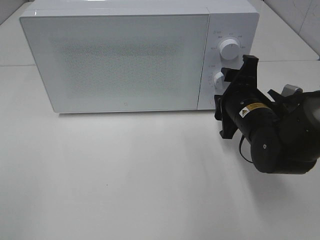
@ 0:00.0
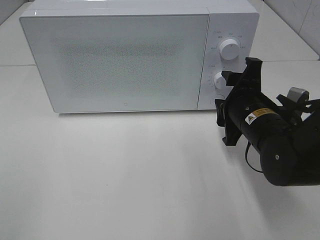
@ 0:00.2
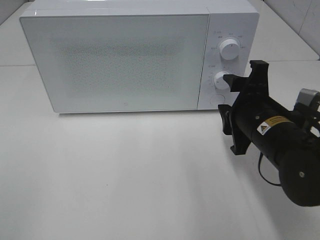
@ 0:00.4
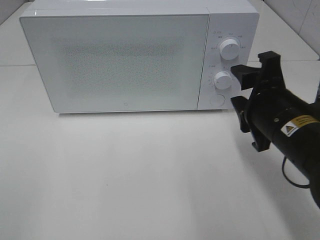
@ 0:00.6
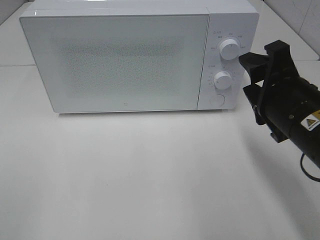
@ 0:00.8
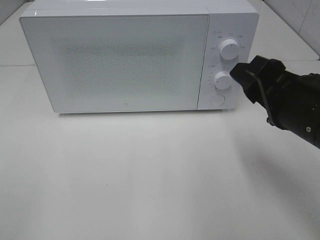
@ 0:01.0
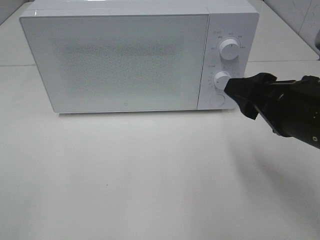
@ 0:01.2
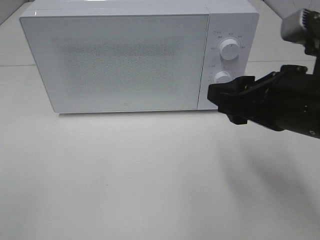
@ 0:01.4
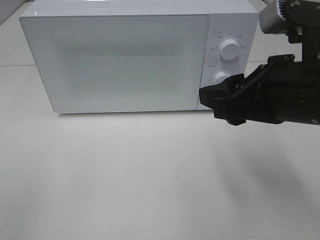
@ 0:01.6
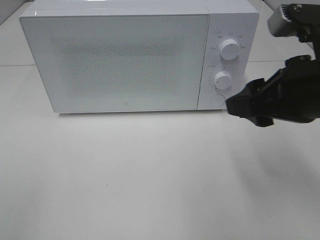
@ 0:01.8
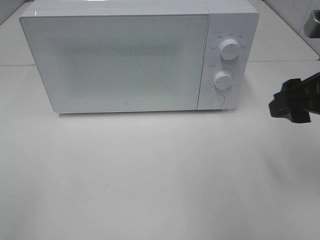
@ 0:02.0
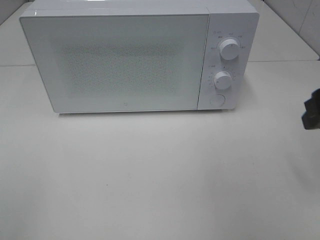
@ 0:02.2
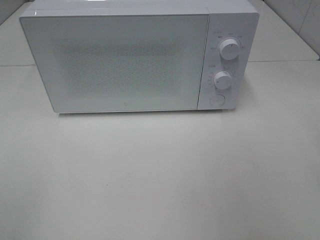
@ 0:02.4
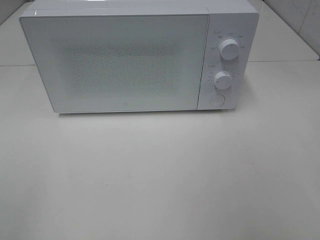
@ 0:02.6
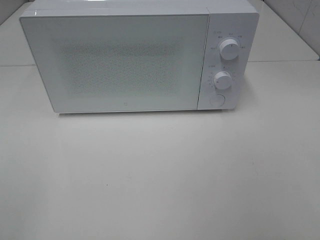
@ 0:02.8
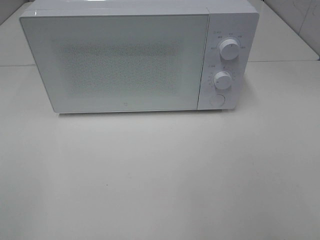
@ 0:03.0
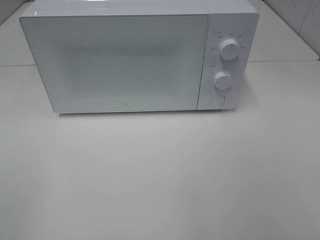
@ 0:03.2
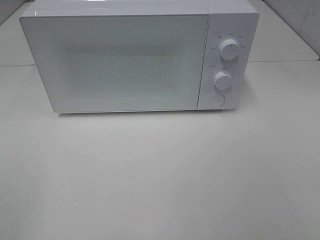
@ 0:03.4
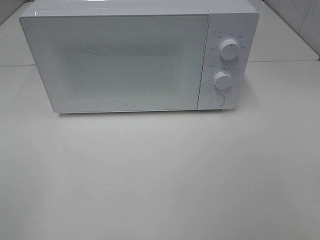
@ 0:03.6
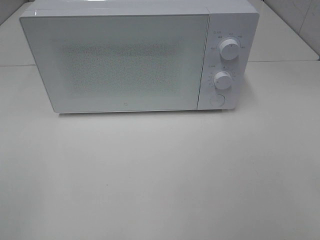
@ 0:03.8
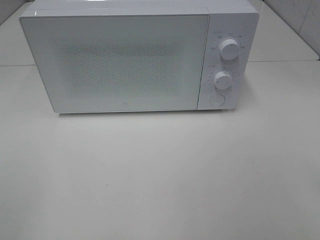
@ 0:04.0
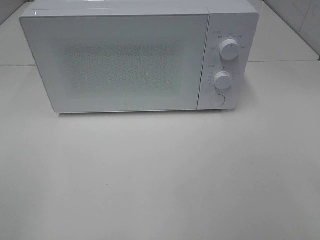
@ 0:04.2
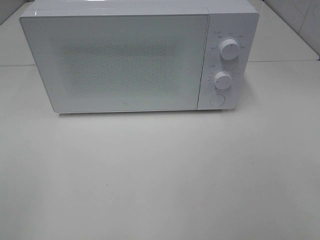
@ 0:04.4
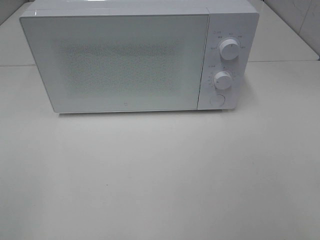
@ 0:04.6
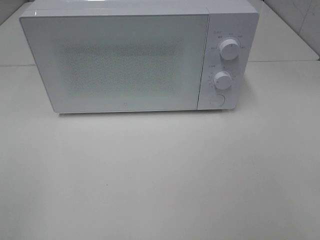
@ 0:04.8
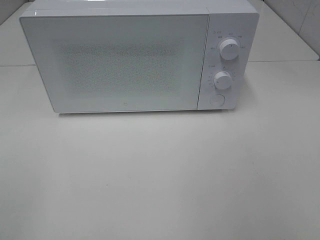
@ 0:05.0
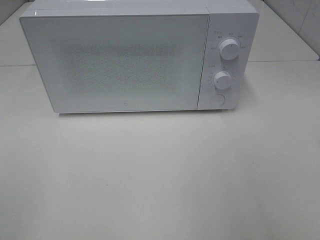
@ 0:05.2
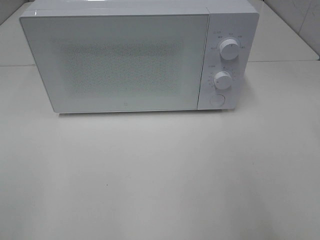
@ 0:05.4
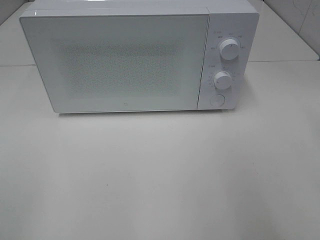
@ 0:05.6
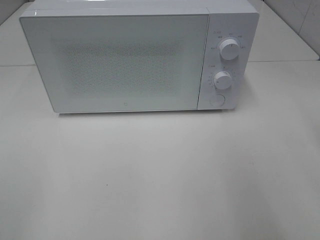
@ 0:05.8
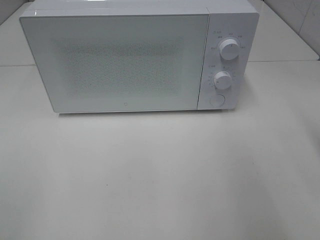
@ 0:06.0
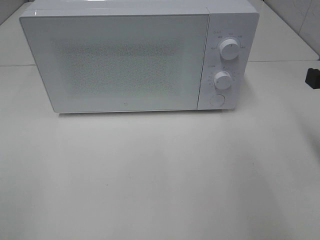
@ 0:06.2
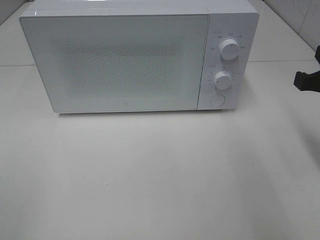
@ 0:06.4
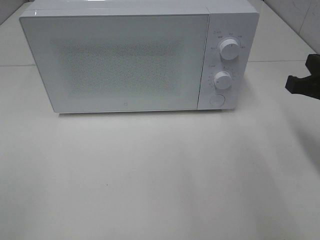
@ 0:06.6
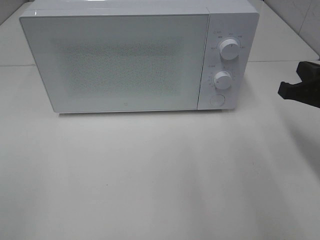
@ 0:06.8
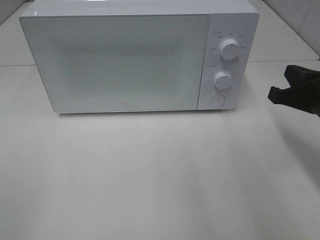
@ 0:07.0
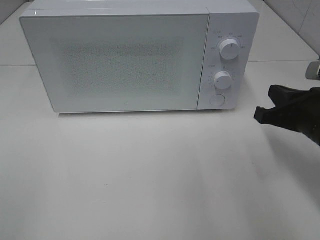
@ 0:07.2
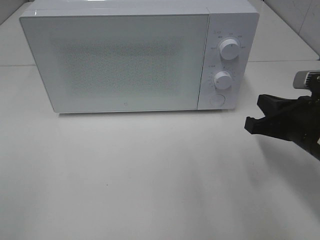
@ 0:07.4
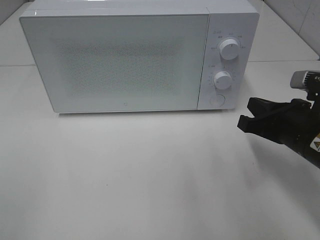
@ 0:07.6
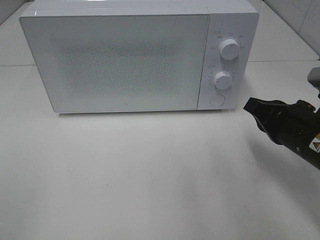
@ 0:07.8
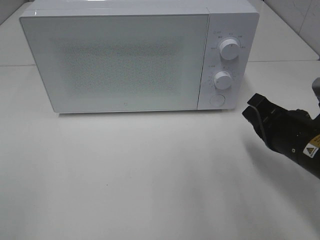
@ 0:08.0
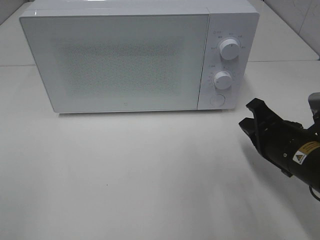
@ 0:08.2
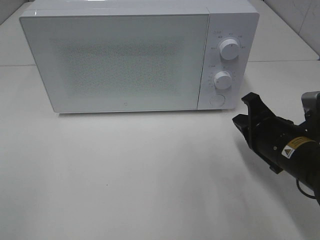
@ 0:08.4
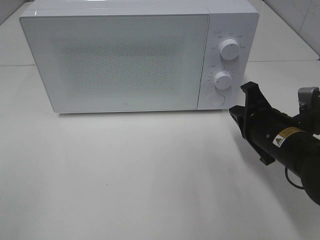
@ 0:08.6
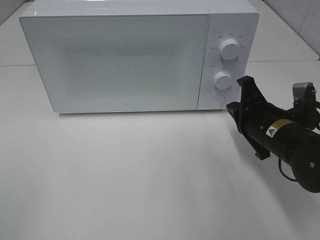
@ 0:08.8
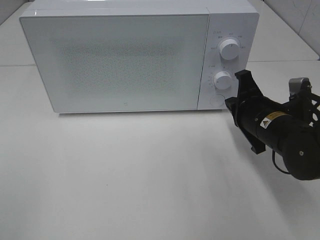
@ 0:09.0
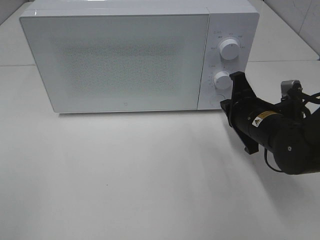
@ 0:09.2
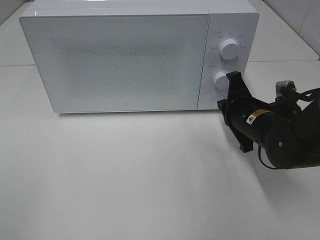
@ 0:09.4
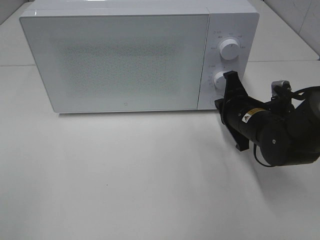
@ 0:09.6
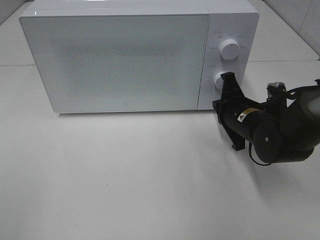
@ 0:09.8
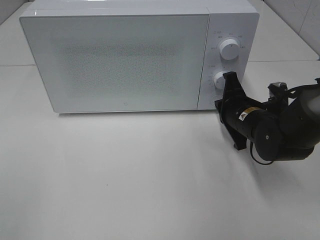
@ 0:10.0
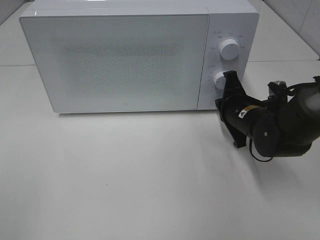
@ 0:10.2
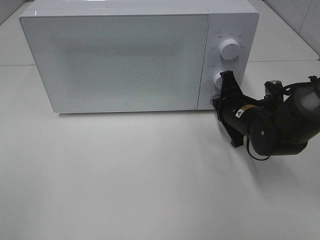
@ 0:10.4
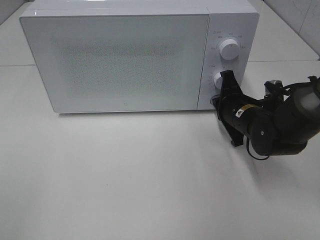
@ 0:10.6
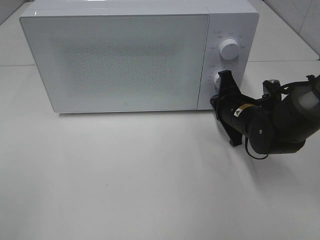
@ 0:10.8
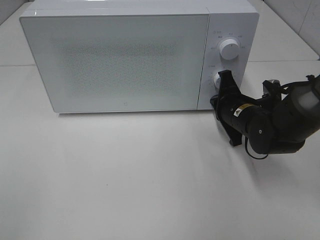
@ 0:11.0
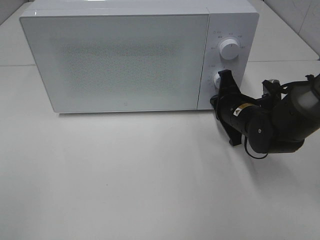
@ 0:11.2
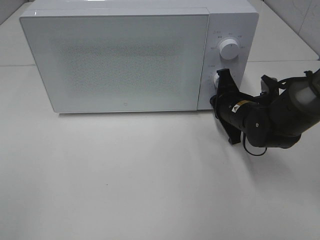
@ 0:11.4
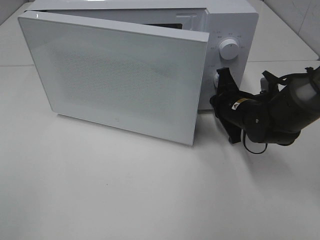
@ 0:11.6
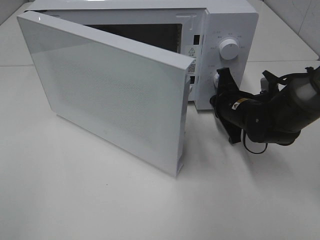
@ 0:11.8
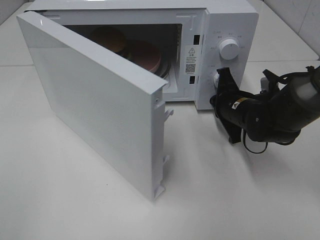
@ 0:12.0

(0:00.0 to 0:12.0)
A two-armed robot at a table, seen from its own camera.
Task of the whole recording: Heat the burger.
0:00.0 - 0:01.6: The right gripper heads upward and backward, covering some 15 cm.
0:01.6 - 0:03.0: The right gripper travels backward and to the right by about 20 cm.
0:06.0 - 0:07.6: The right gripper heads downward and to the left, covering about 15 cm.
0:07.6 - 0:09.0: The right gripper heads forward, covering about 5 cm.
0:09.0 - 0:10.4: The right gripper moves forward, about 5 cm.

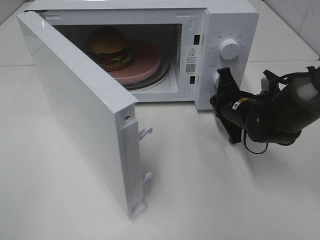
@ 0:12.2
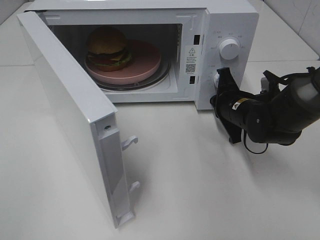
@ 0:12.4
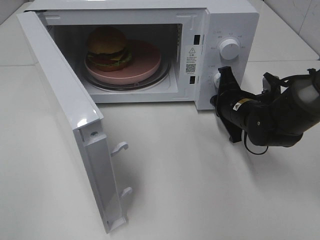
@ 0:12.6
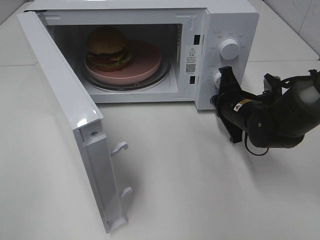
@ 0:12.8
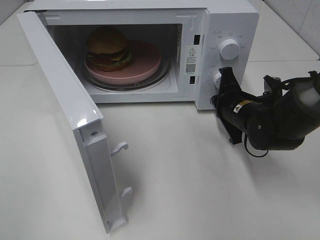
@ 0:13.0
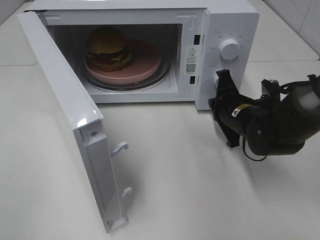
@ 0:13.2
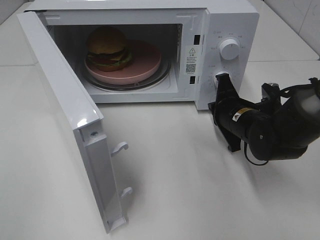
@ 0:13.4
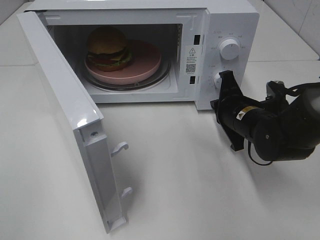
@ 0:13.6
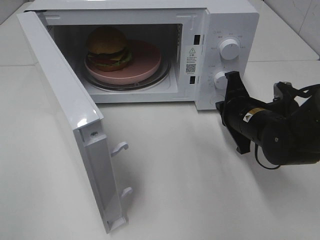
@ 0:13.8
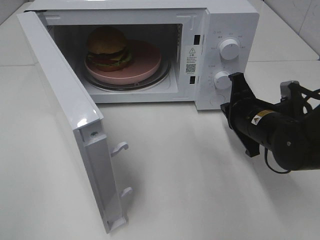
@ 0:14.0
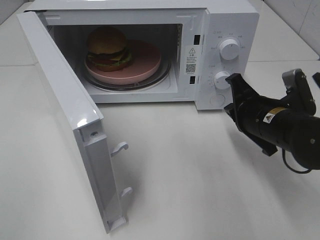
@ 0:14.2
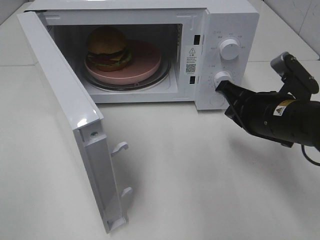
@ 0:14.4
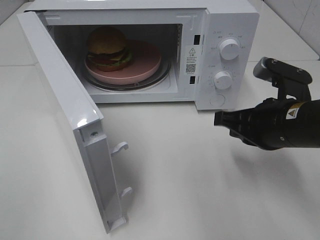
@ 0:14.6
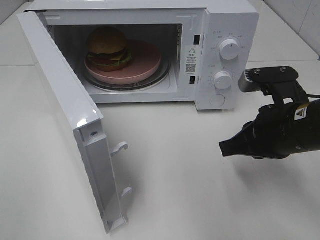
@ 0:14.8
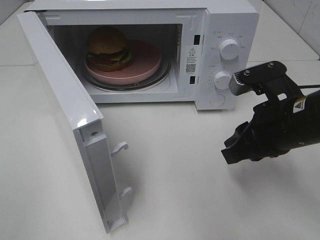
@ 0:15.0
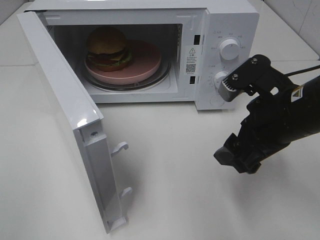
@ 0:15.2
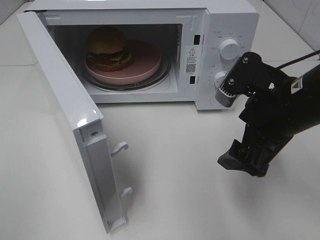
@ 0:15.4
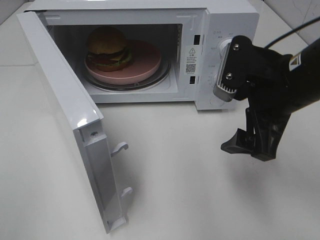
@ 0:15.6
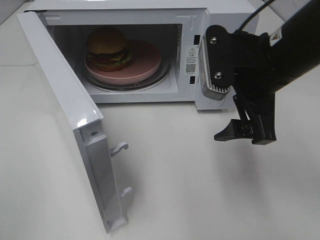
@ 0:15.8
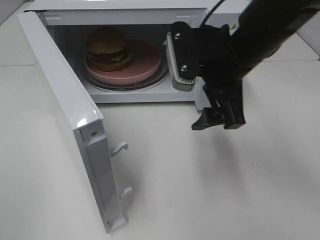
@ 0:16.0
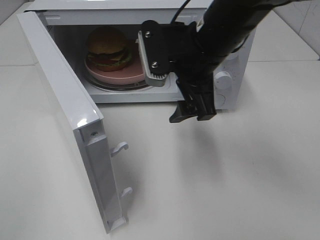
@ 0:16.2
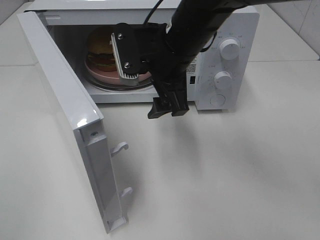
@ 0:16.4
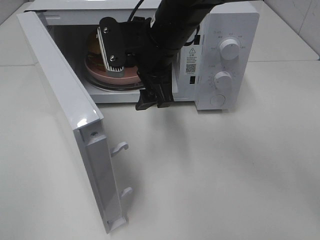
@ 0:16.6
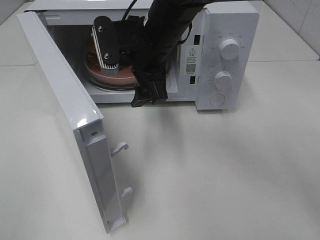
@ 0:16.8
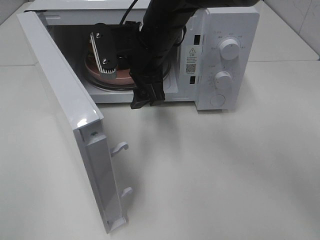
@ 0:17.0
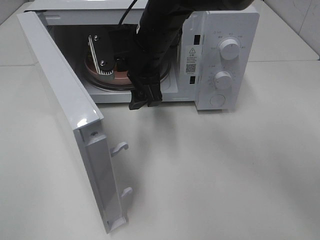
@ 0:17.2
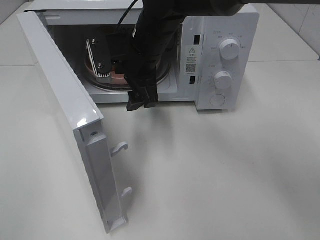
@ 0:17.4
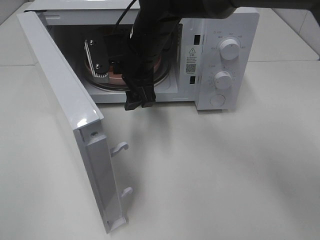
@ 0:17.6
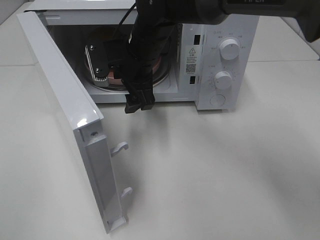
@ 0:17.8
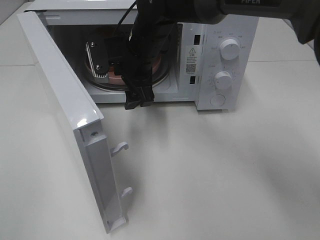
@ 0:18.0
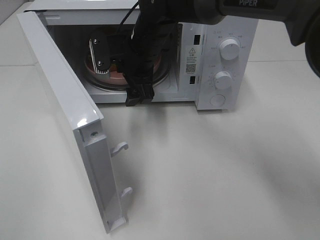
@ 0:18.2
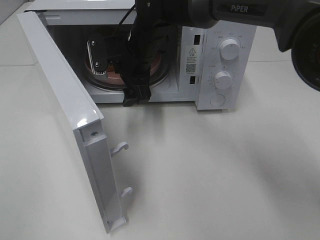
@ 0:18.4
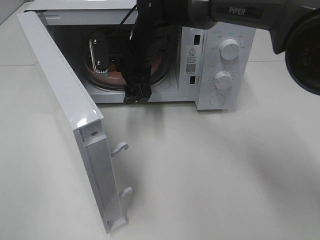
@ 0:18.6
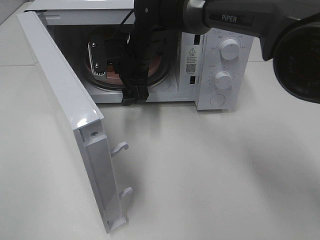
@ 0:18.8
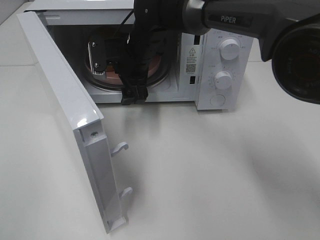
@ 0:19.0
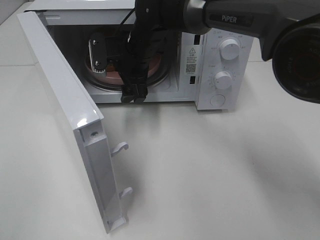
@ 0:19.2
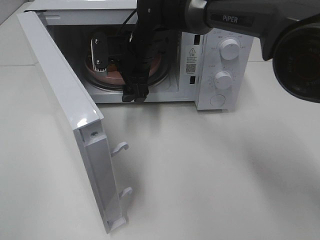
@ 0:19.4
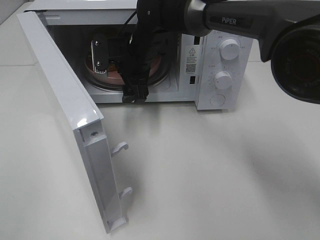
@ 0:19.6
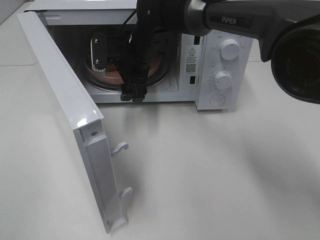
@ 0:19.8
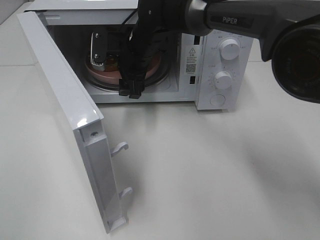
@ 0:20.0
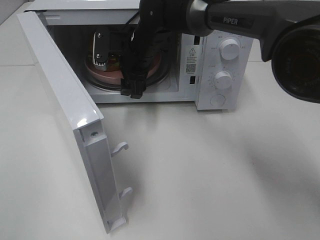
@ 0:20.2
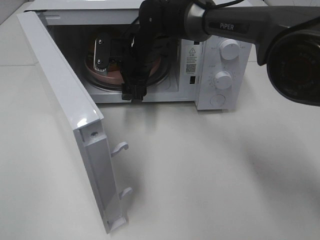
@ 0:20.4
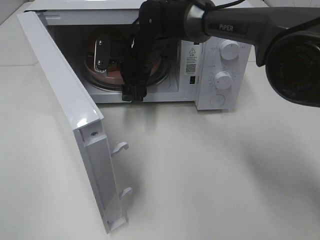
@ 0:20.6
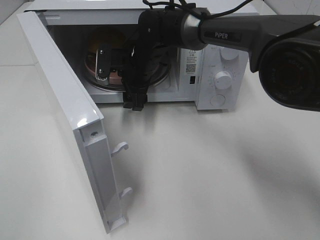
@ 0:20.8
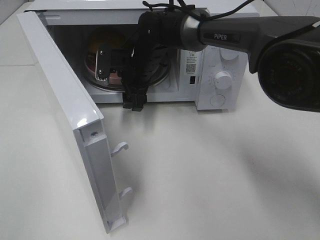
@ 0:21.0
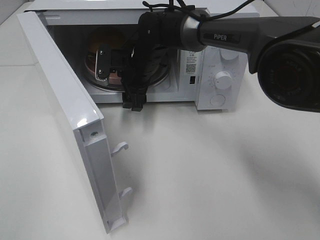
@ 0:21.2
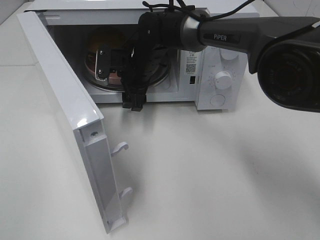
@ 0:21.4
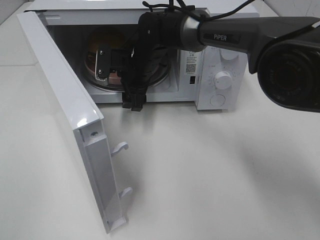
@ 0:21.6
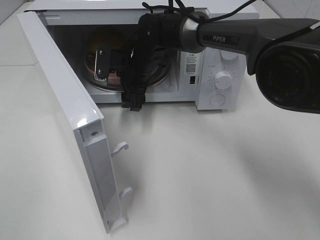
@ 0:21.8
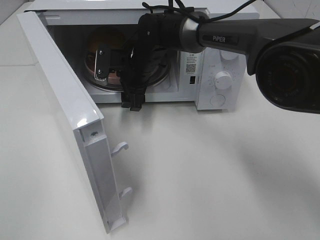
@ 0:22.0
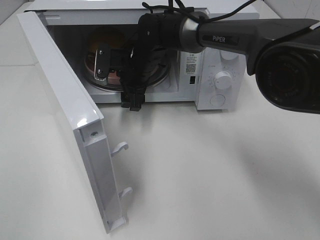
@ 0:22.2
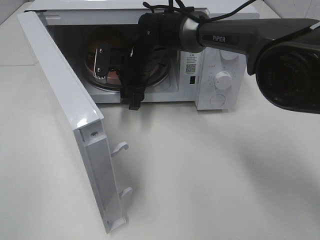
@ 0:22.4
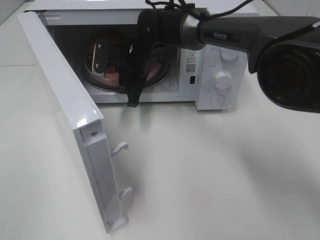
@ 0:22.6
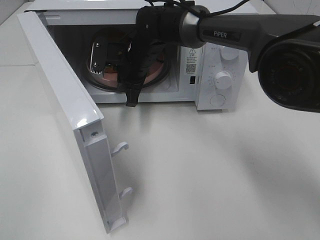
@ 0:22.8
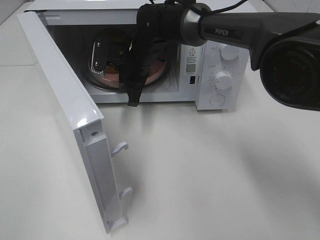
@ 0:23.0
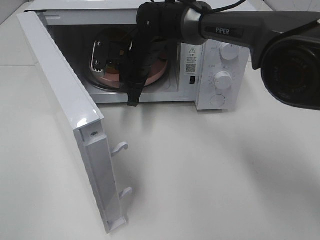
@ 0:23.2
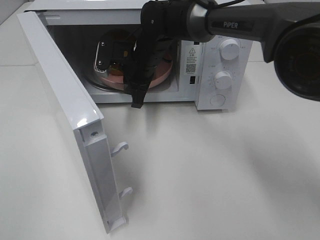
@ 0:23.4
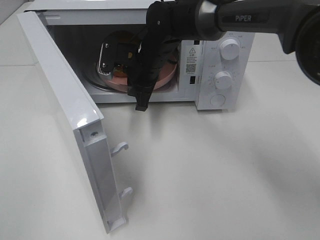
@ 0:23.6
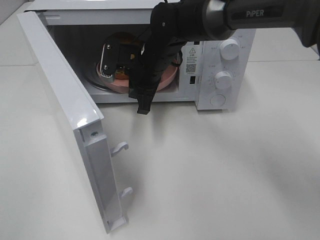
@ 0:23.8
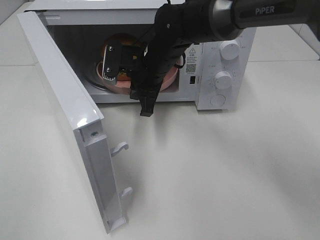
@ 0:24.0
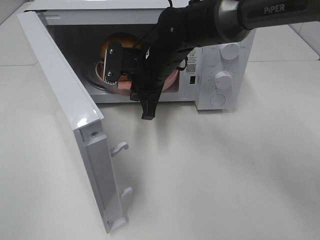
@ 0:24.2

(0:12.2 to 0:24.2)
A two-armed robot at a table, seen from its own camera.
Task of the whole recording: Heat the burger.
Step, 0:13.4 - 0:22.6: Right hand: grab the plate with the hamburger.
0:12.2 - 0:13.8: The right gripper shifts some 5 cm backward.
0:13.8 - 0:15.2: The right gripper moves upward and backward, roughly 15 cm, and opens its fingers.
0:15.2 - 0:16.6: The right gripper goes some 20 cm to the left and forward.
0:16.6 - 0:18.2: The right gripper moves forward, about 5 cm.
0:18.2 - 0:19.8: The grippers make only small movements.
0:19.8 - 0:21.2: The grippers stay close to where they were, moving slightly.
0:21.2 - 0:22.6: The right gripper closes.
0:22.6 - 0:24.2: The right gripper shifts some 5 cm backward.
